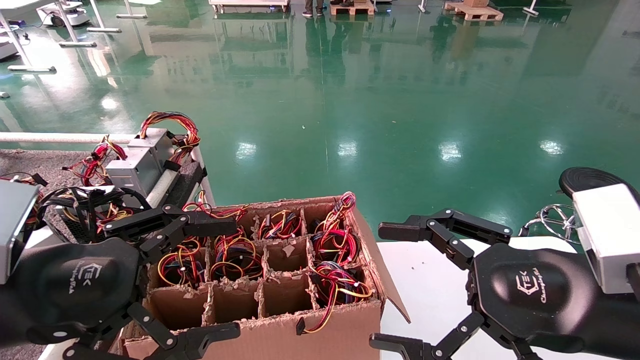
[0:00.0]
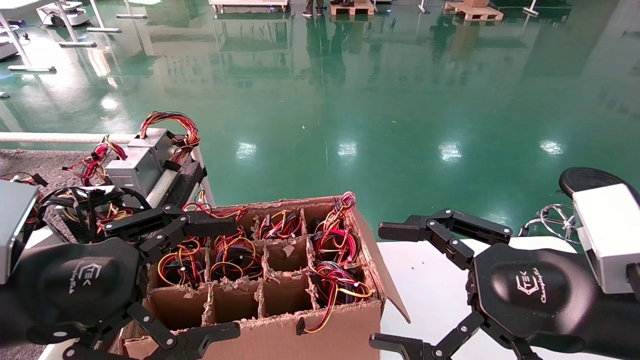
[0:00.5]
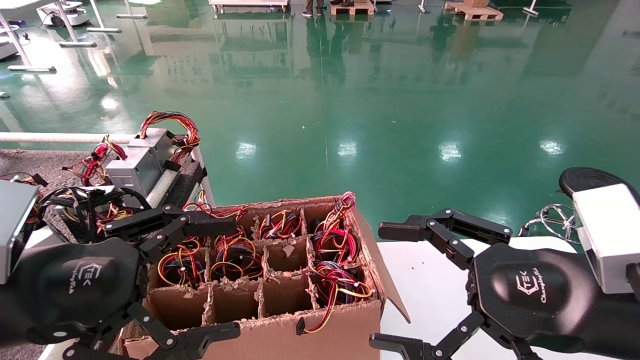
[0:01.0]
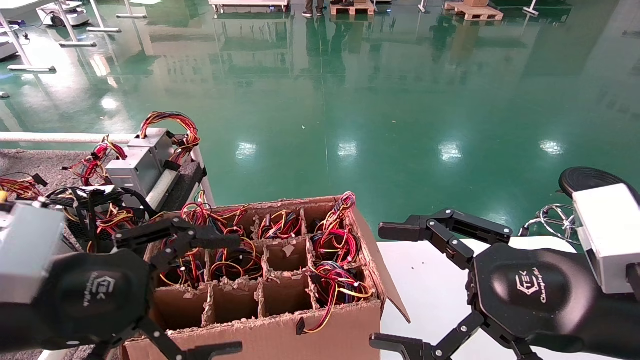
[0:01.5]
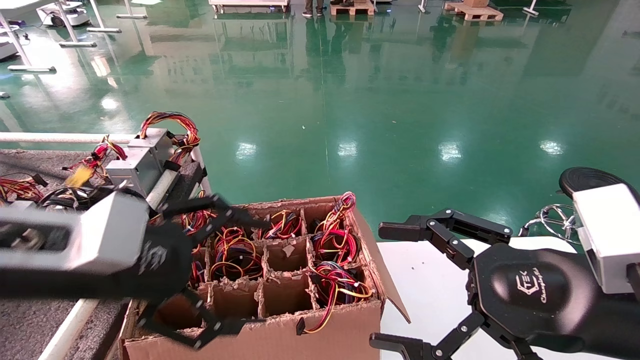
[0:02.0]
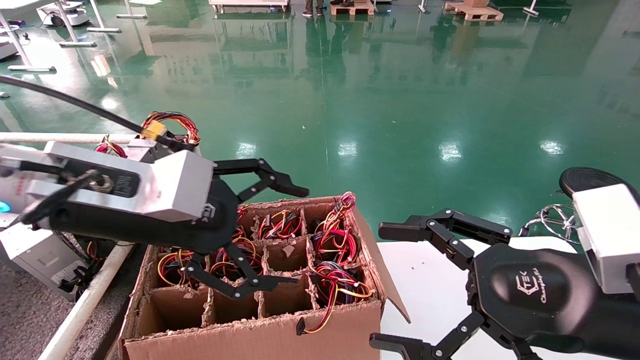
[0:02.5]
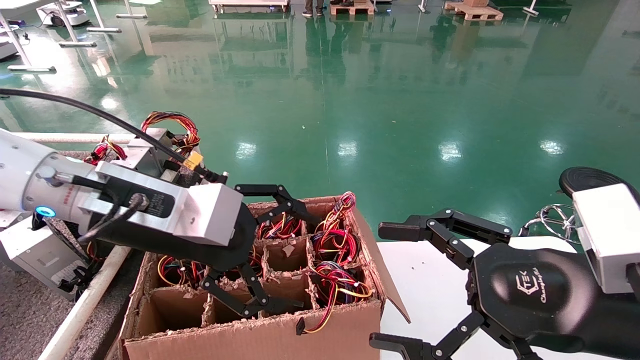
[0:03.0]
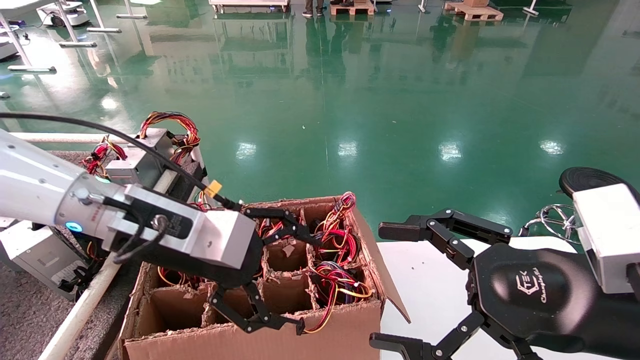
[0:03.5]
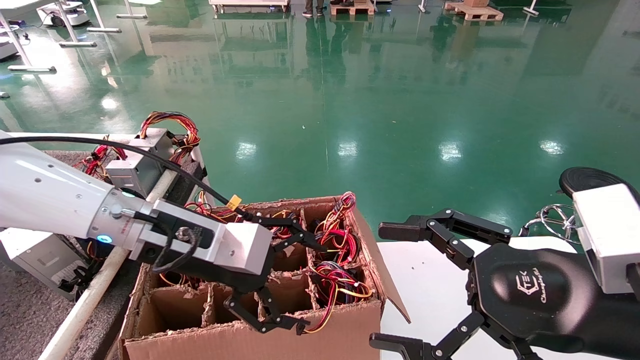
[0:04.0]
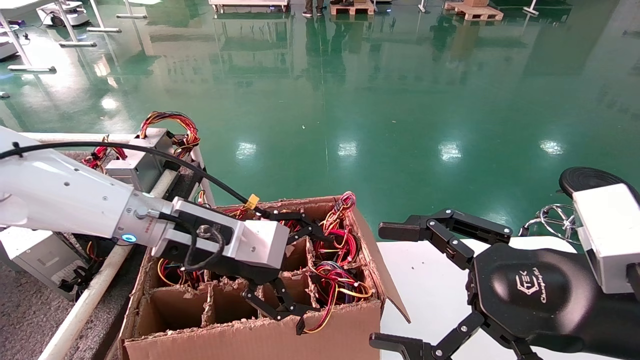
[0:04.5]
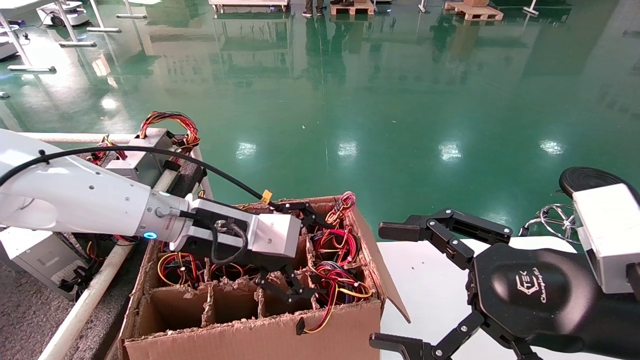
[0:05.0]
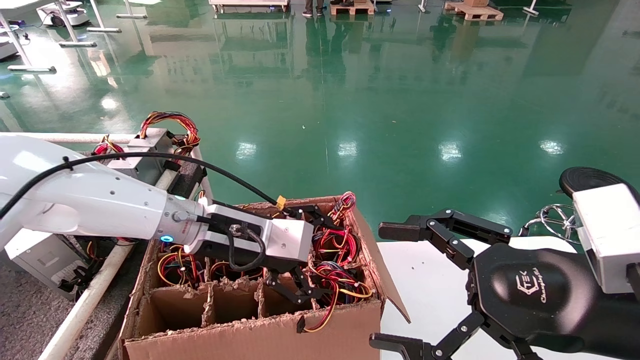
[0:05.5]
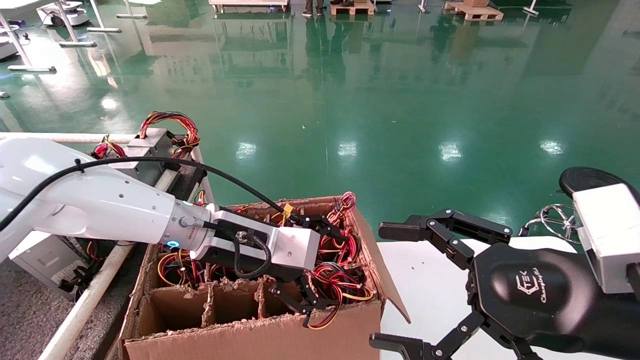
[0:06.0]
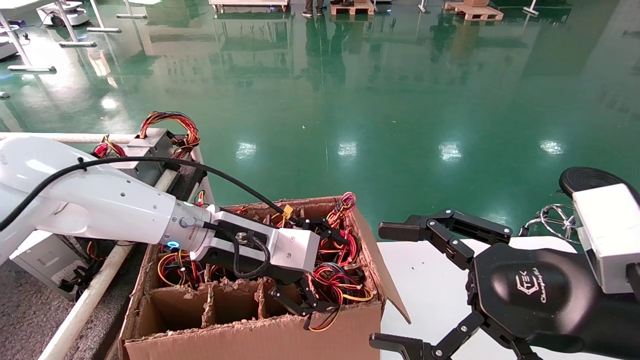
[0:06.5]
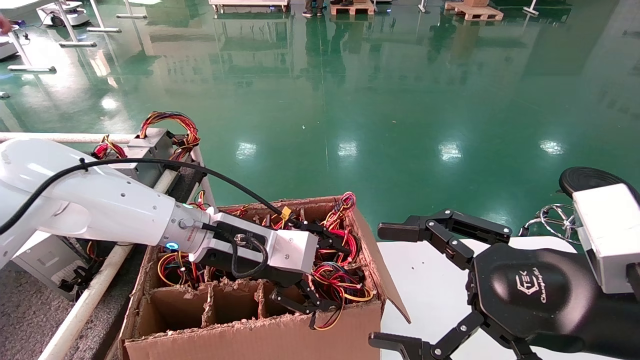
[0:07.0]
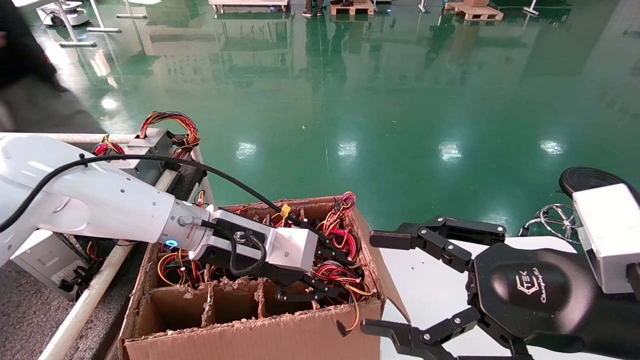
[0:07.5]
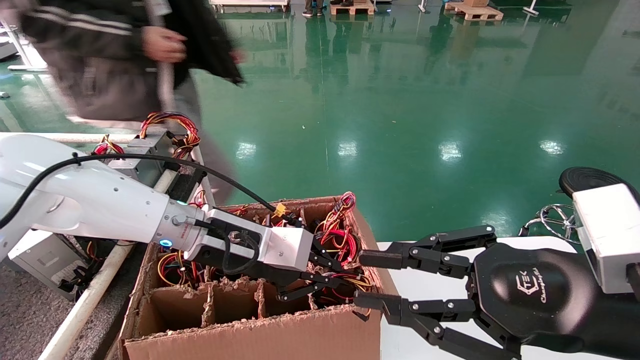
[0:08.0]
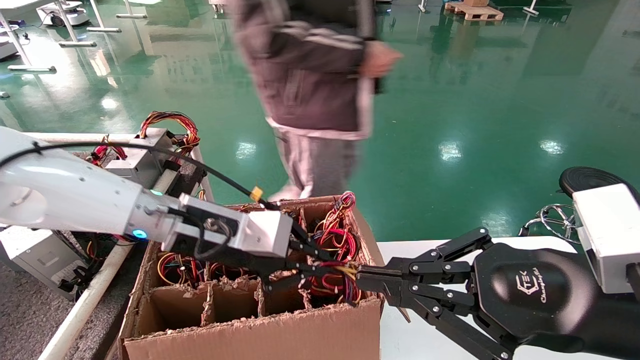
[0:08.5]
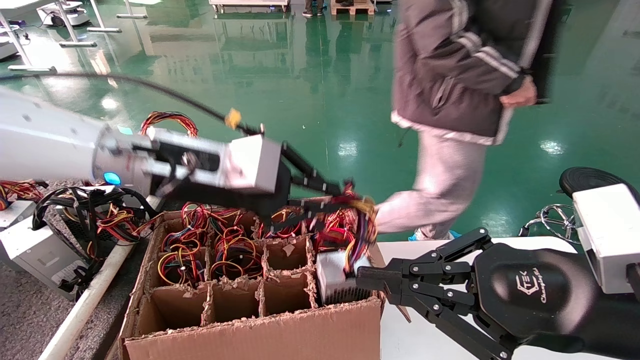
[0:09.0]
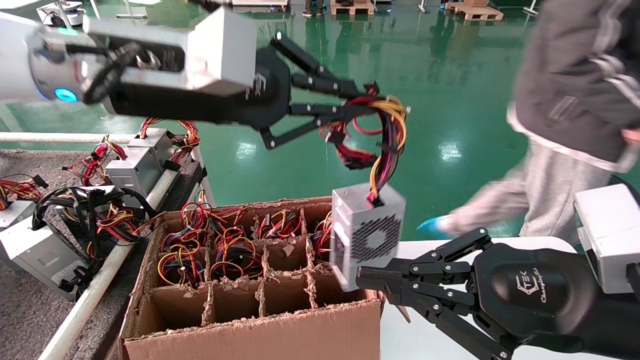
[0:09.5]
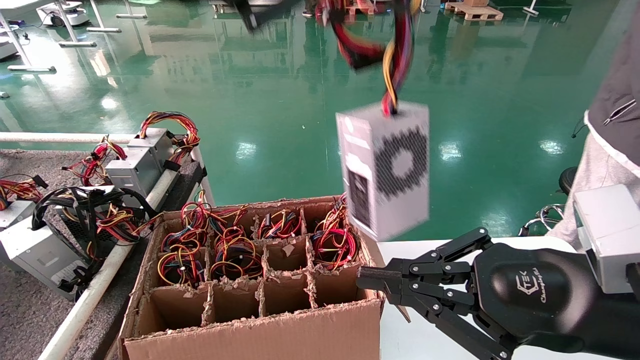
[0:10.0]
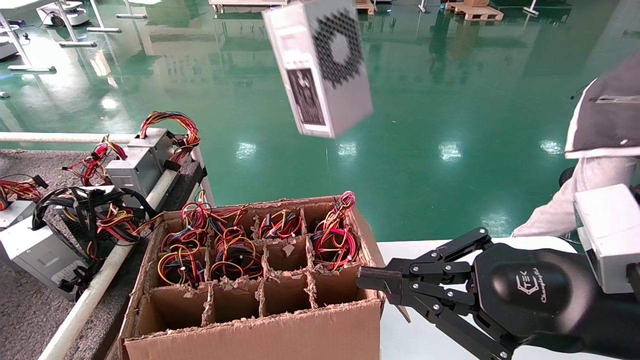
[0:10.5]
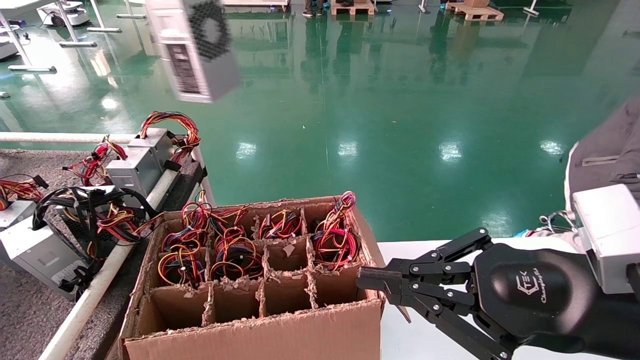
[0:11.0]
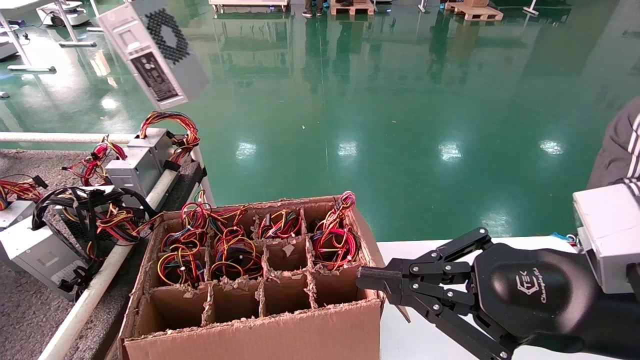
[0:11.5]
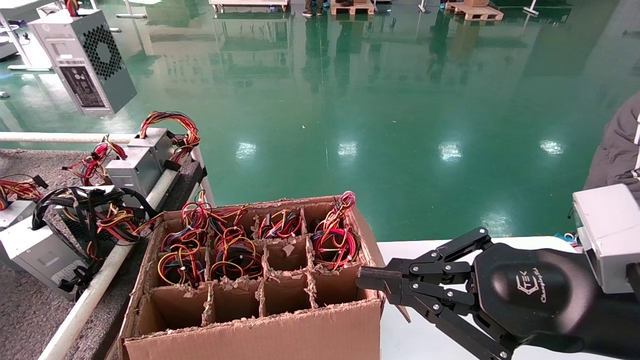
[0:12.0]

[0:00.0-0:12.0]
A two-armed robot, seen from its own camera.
Step, 0:01.5 to 0:07.5: Grab and lift the power supply from the large box.
0:00.0 to 0:02.0: The left gripper moves about 5 cm.
0:02.0 to 0:04.0: The left gripper heads forward and to the right, covering some 10 cm.
0:04.0 to 0:06.0: The left gripper changes place by about 5 cm.
0:06.0 to 0:08.0: The left gripper closes up. The right gripper closes its fingers.
0:08.0 to 0:10.0: The left gripper heads upward, covering roughly 25 cm. The right gripper closes up.
0:10.0 to 0:12.0: The left gripper shifts approximately 25 cm to the left.

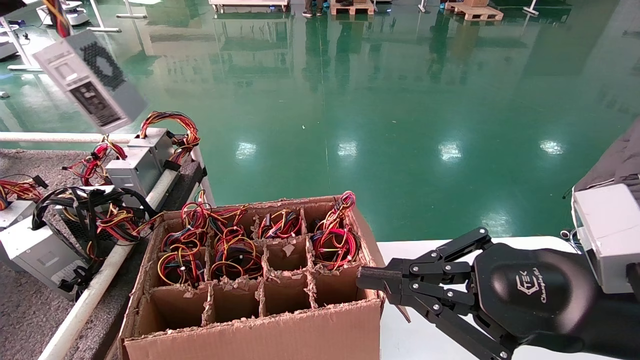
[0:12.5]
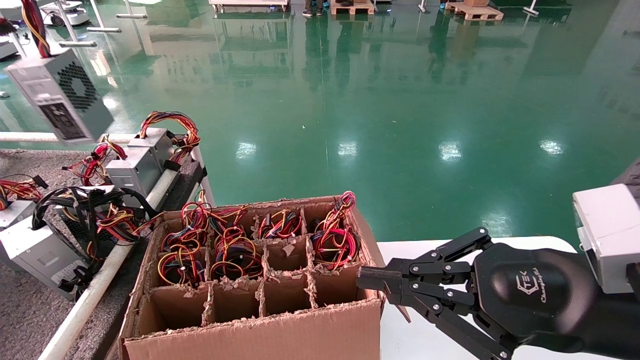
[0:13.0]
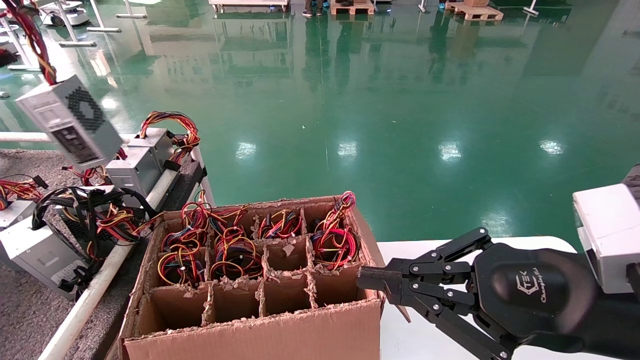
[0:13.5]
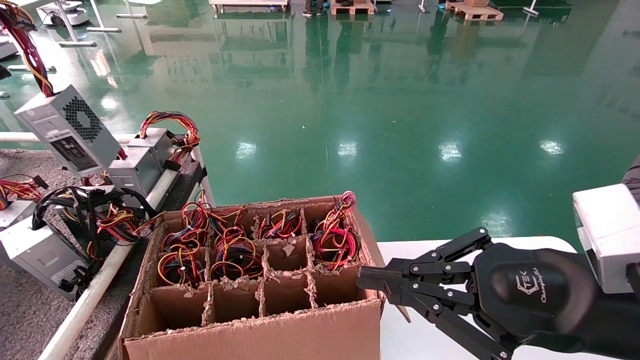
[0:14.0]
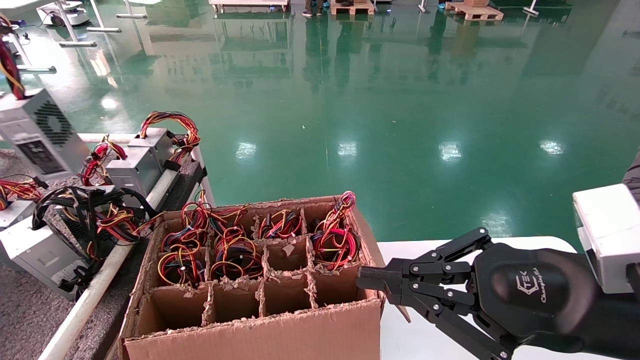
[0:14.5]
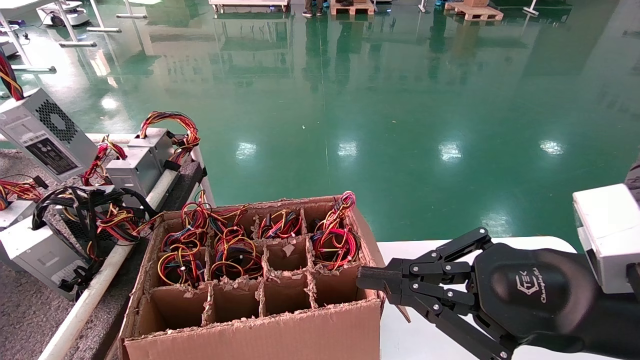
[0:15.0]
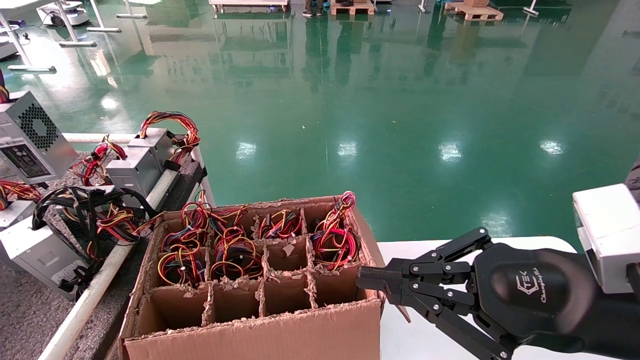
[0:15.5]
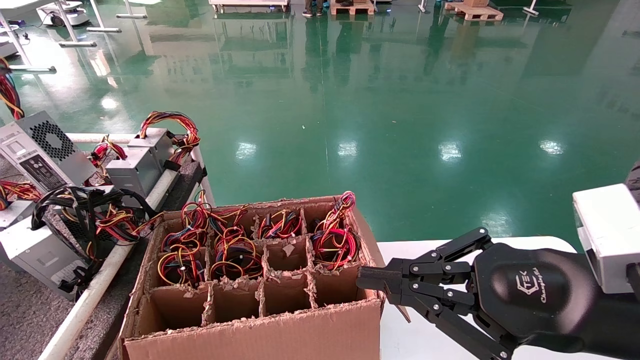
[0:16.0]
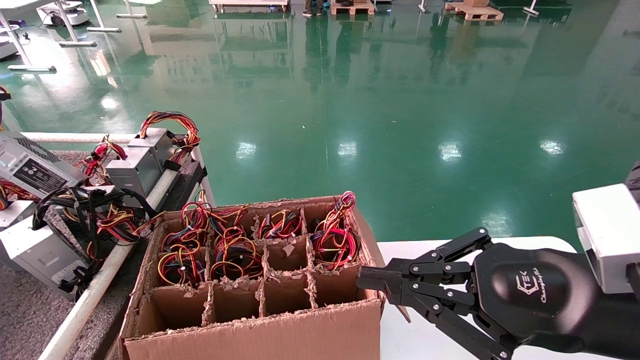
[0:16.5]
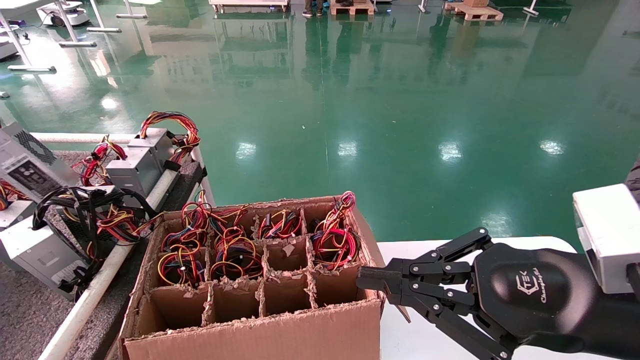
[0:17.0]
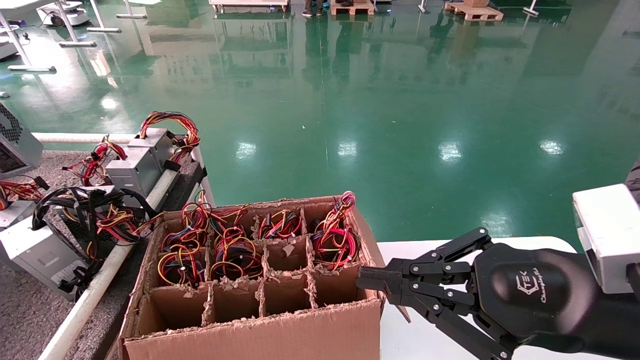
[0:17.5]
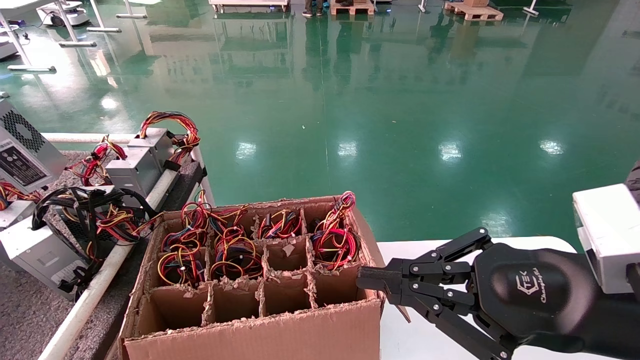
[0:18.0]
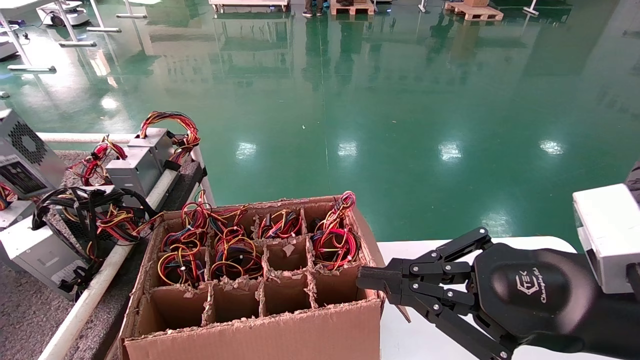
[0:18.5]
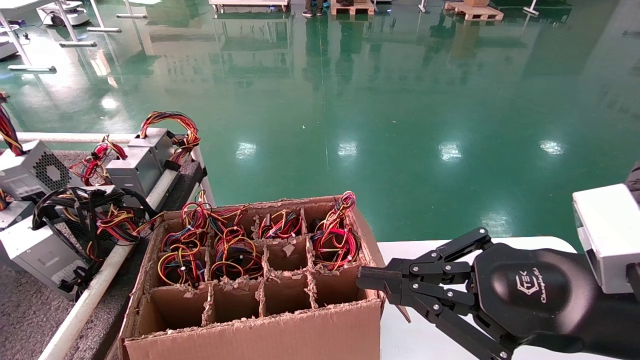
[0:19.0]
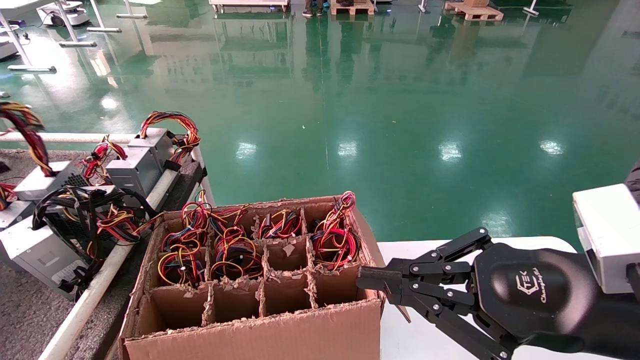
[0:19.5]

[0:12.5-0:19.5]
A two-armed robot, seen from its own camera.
Step, 0:12.5 to 0:19.5: Place the power supply on the operating table.
0:12.5 to 0:14.5: The left gripper shifts roughly 10 cm to the left and downward.
0:14.5 to 0:16.0: The grippers stay close to where they were, moving slightly.
0:16.0 to 0:17.5: The grippers move only a little.
0:17.5 to 0:19.5: The left gripper heads downward, covering roughly 10 cm.
